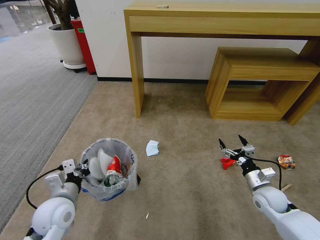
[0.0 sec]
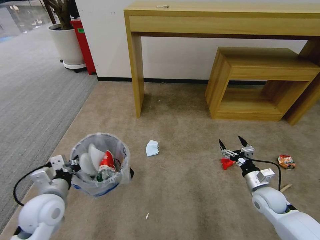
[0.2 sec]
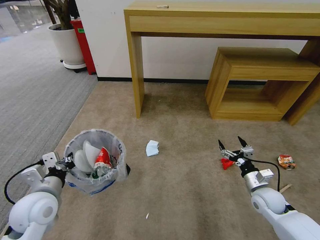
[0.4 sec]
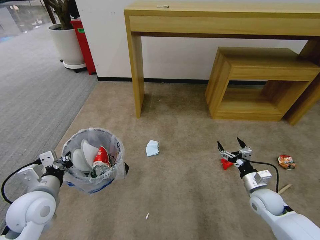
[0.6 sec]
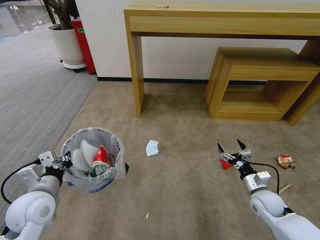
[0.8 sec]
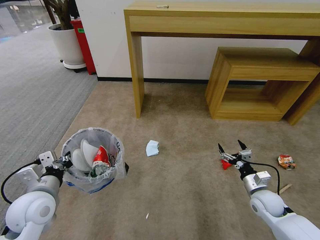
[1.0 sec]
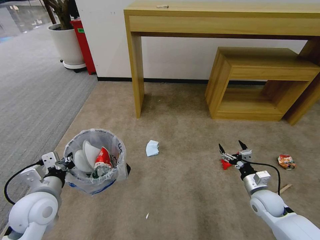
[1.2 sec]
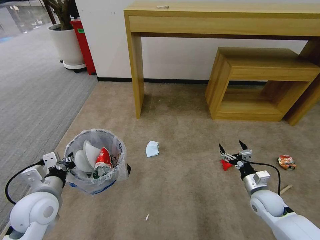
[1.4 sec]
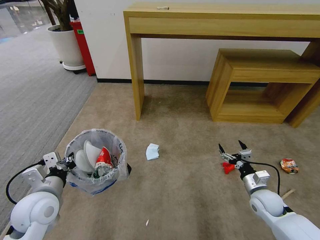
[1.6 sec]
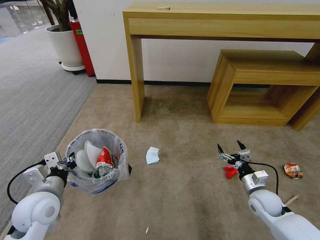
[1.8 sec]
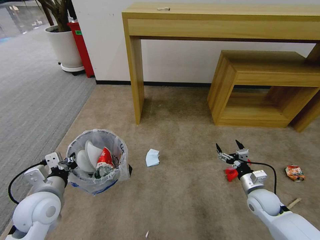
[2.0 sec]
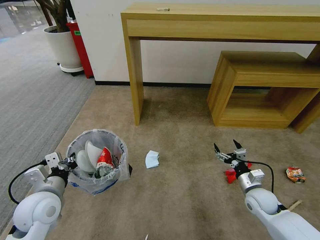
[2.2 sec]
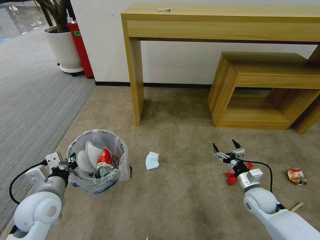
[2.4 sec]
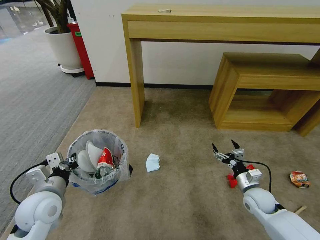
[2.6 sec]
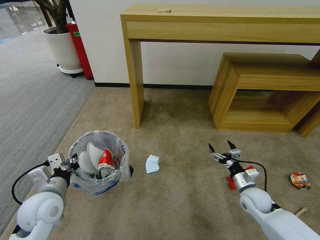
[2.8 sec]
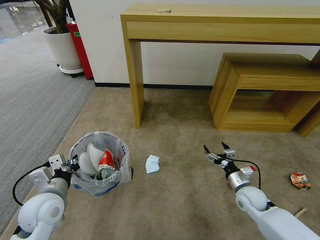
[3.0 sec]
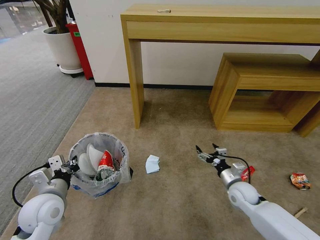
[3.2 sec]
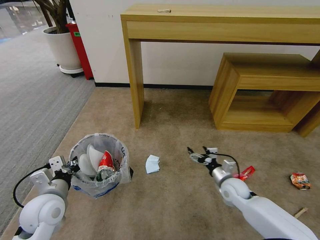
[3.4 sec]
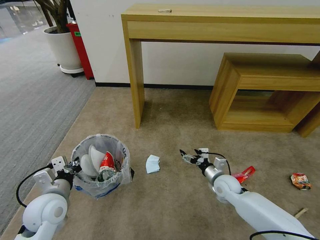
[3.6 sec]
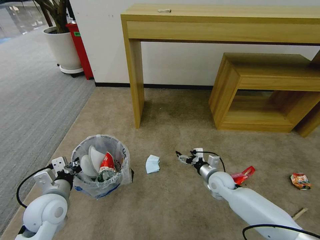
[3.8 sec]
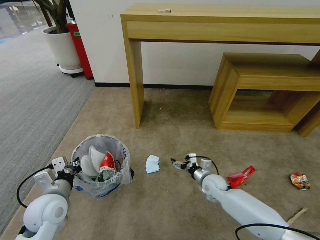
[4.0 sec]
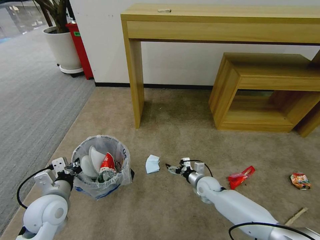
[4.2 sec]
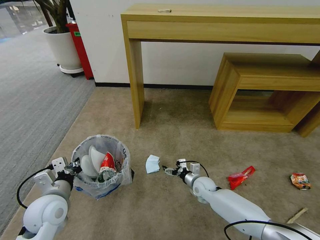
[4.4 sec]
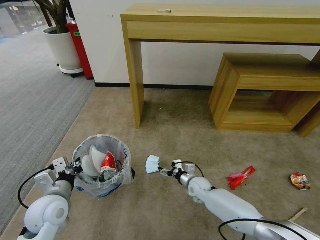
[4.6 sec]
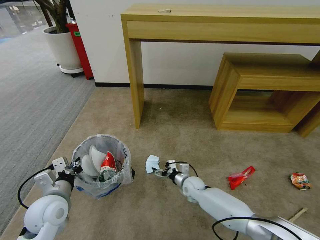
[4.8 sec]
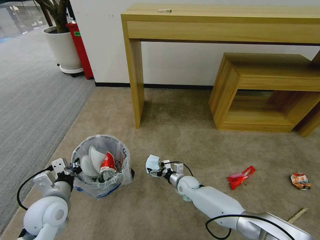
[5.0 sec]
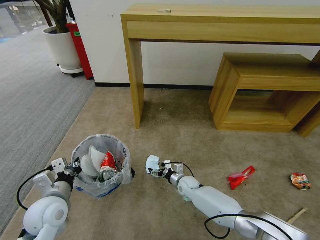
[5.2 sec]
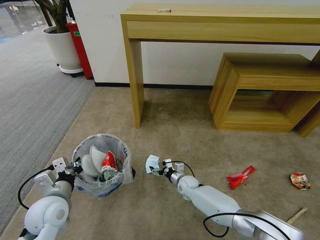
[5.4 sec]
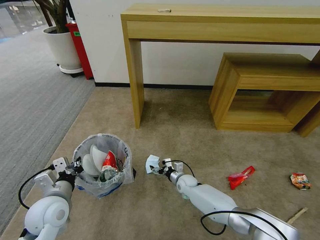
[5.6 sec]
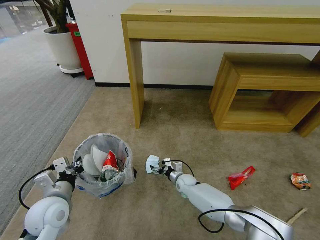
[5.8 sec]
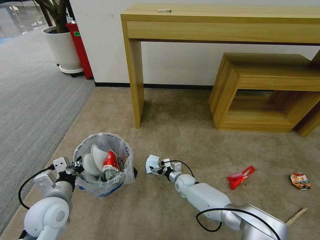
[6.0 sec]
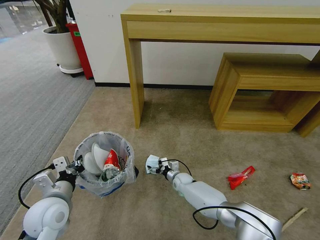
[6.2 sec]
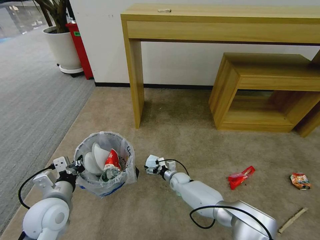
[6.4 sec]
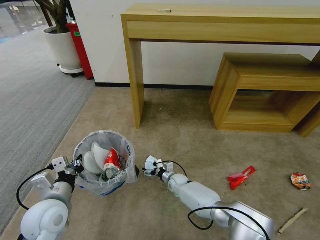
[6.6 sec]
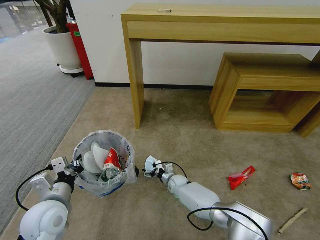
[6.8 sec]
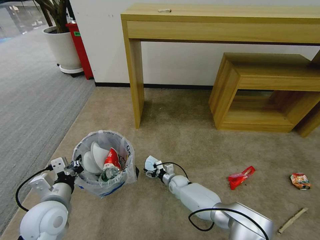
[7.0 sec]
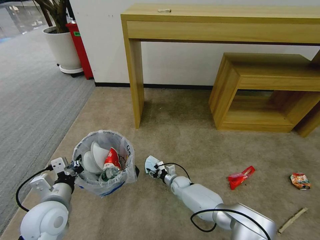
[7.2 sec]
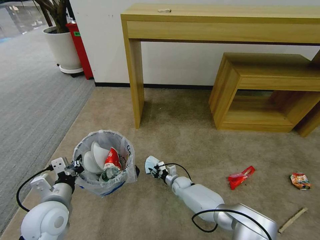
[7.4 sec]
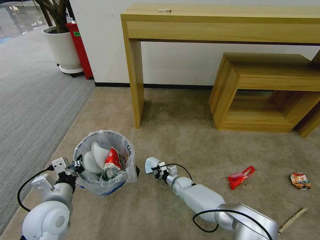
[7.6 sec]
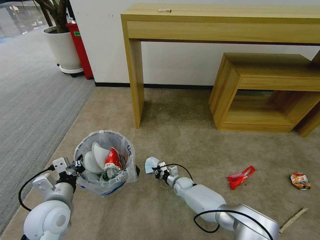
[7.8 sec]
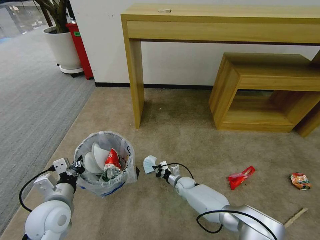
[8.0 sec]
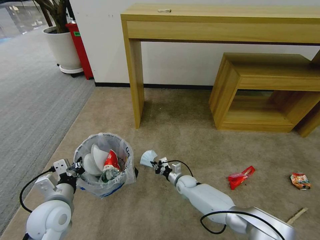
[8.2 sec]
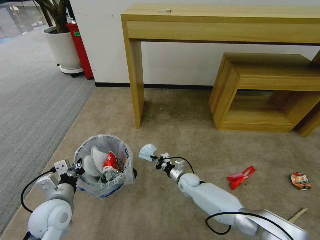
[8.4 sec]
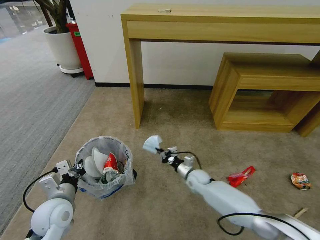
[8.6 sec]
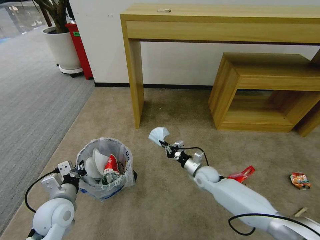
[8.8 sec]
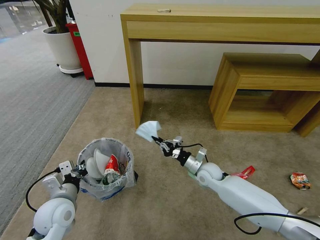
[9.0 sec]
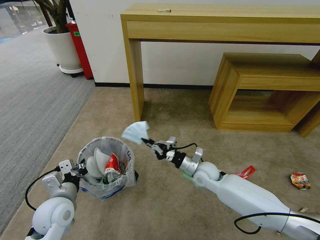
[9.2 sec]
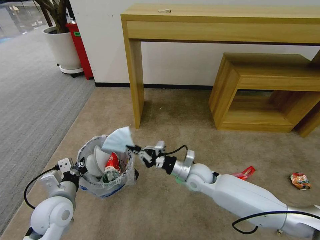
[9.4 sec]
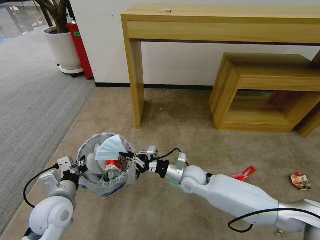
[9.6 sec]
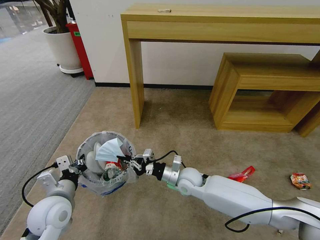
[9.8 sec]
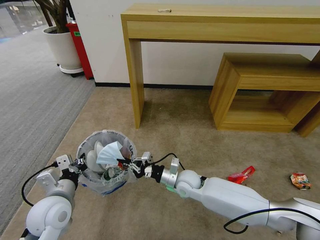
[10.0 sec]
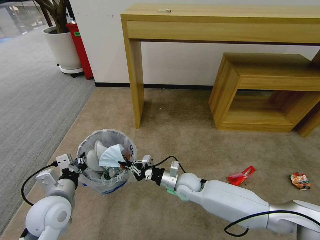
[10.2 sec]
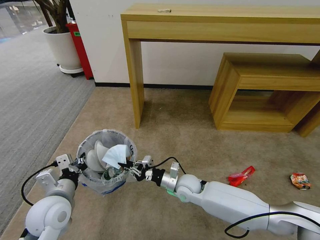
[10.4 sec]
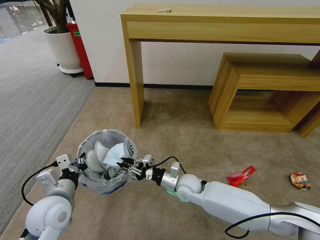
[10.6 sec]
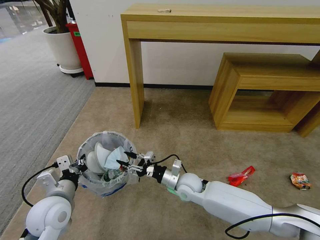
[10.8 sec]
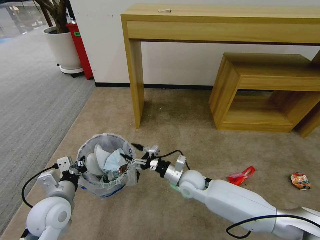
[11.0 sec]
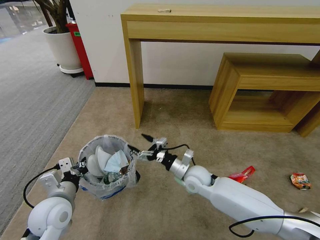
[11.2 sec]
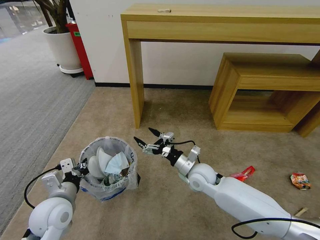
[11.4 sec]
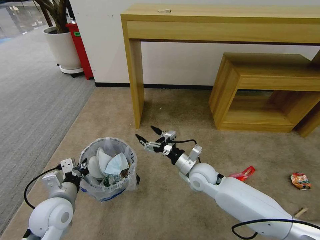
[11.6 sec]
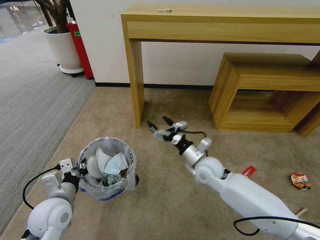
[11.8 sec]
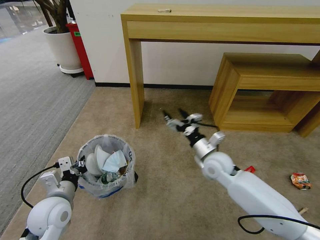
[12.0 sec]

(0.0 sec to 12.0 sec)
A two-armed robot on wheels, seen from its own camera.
Task of the whole recording: Pick up the trash bin and place the garbage on the floor into it.
0.0 sec - 1.6 sec: The left gripper ends up approximately 5 cm from where it was.
3.0 sec - 4.4 sec: The right gripper travels to the left, forward and downward by some 20 cm.
4.4 sec - 6.0 sec: The right gripper goes some 10 cm to the left and downward.
6.0 sec - 7.6 sec: The right gripper closes up.
7.6 sec - 9.0 sec: The right gripper goes roughly 20 cm upward and to the right.
9.0 sec - 10.4 sec: The right gripper moves to the left and backward, about 10 cm.
10.4 sec - 12.0 sec: The right gripper heads upward and to the right, covering some 15 cm, and opens up.

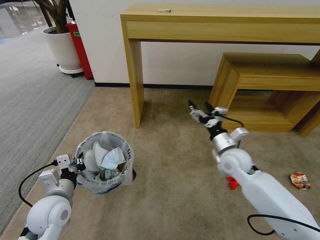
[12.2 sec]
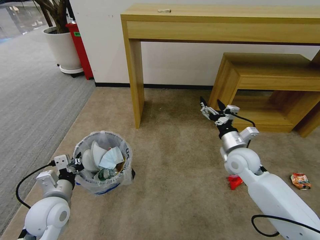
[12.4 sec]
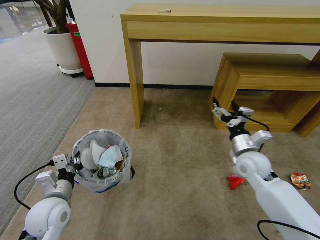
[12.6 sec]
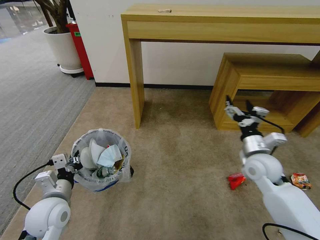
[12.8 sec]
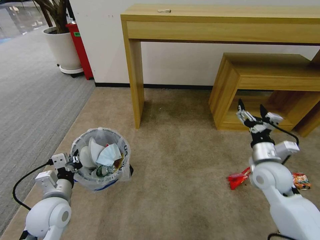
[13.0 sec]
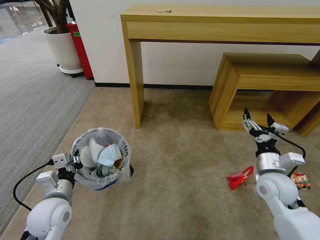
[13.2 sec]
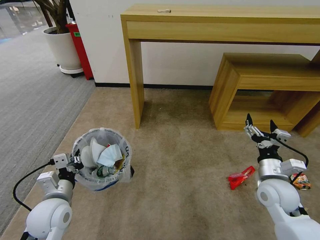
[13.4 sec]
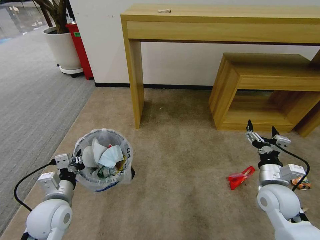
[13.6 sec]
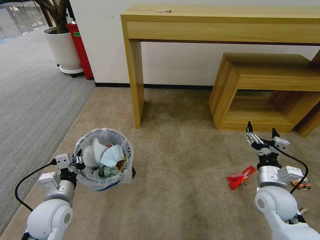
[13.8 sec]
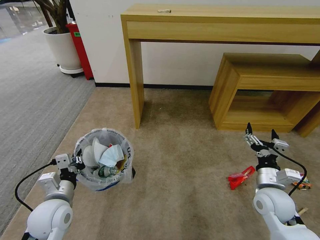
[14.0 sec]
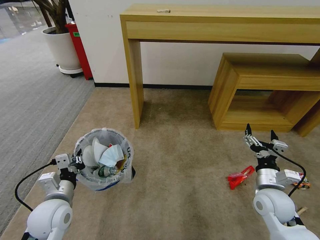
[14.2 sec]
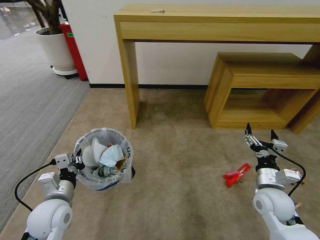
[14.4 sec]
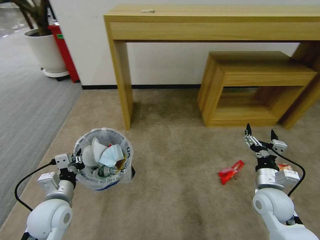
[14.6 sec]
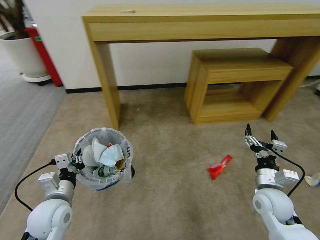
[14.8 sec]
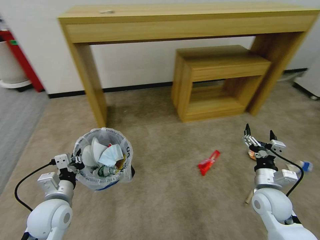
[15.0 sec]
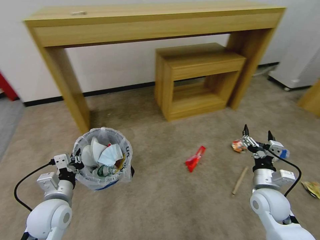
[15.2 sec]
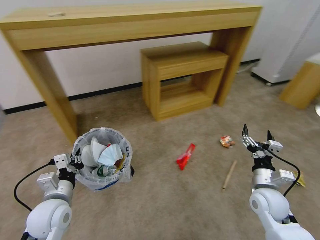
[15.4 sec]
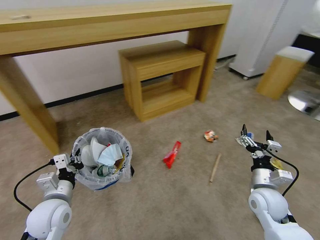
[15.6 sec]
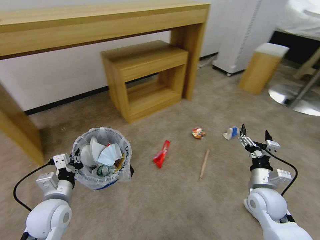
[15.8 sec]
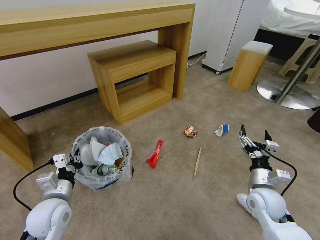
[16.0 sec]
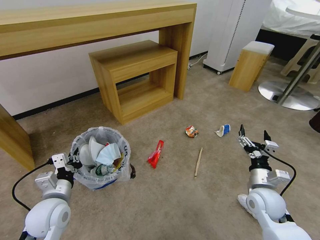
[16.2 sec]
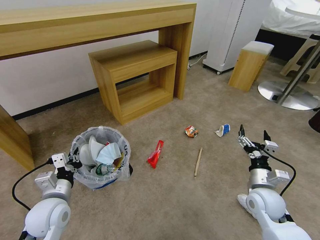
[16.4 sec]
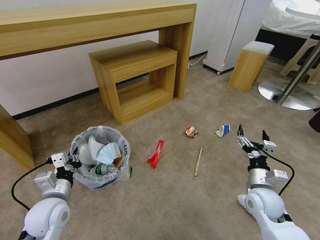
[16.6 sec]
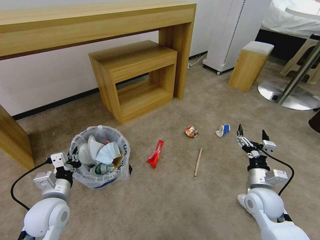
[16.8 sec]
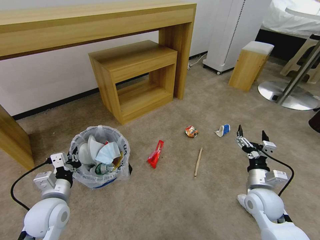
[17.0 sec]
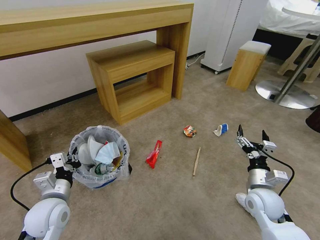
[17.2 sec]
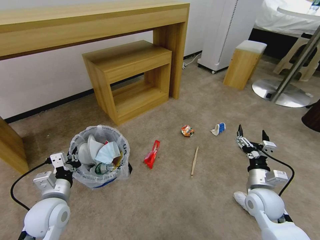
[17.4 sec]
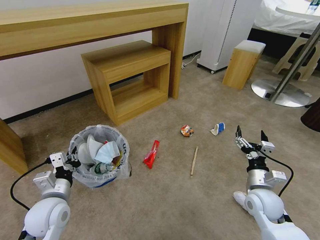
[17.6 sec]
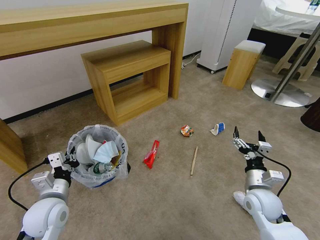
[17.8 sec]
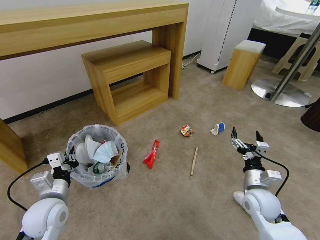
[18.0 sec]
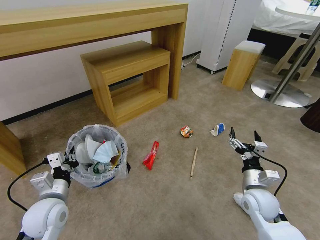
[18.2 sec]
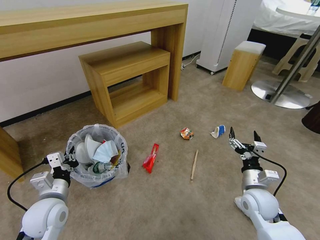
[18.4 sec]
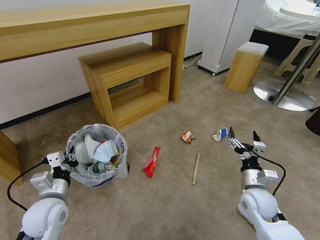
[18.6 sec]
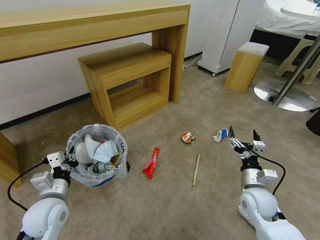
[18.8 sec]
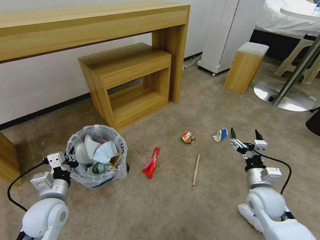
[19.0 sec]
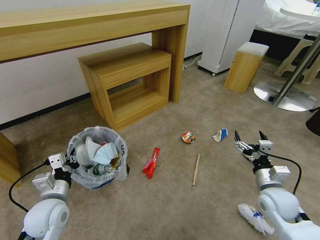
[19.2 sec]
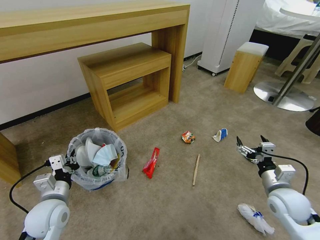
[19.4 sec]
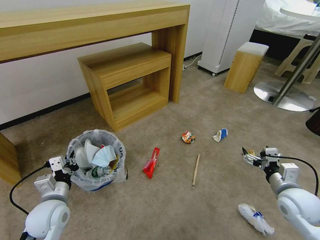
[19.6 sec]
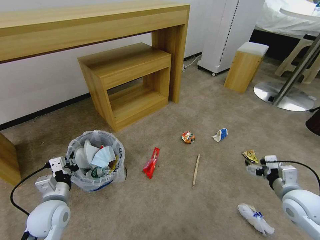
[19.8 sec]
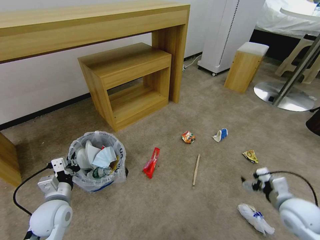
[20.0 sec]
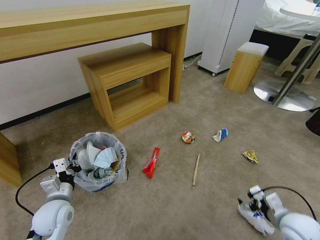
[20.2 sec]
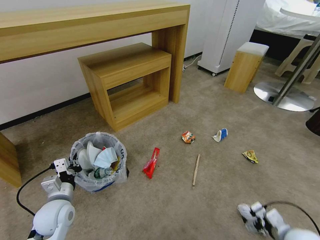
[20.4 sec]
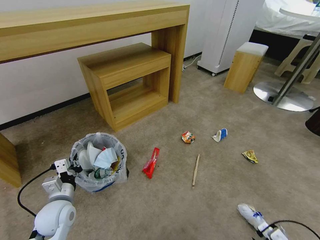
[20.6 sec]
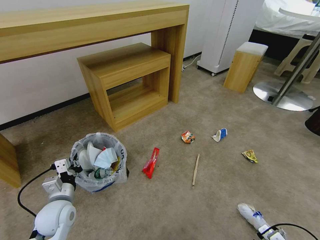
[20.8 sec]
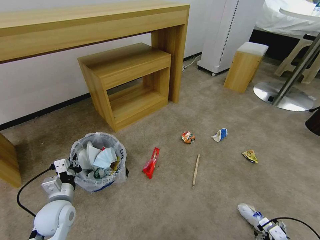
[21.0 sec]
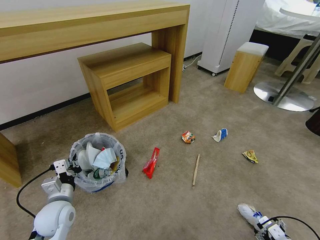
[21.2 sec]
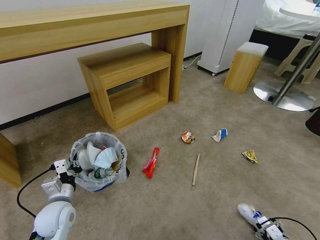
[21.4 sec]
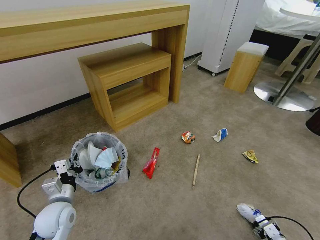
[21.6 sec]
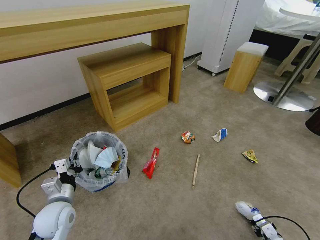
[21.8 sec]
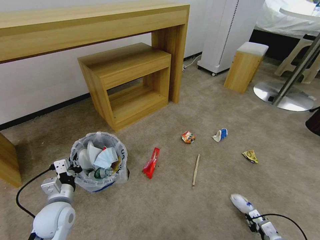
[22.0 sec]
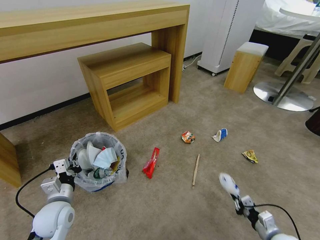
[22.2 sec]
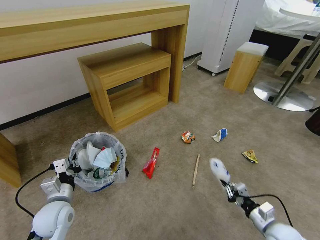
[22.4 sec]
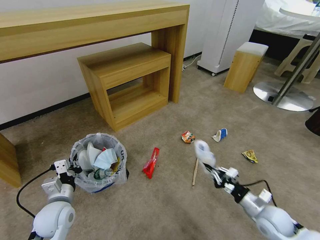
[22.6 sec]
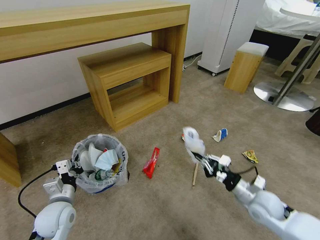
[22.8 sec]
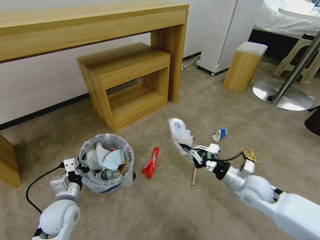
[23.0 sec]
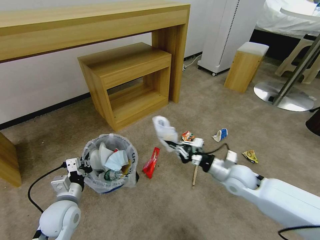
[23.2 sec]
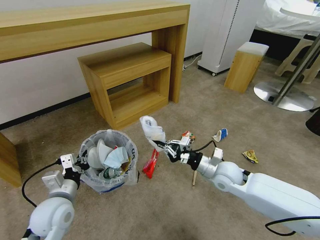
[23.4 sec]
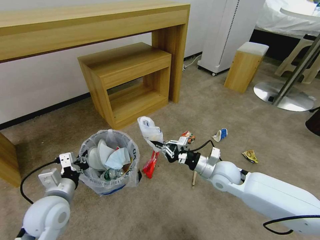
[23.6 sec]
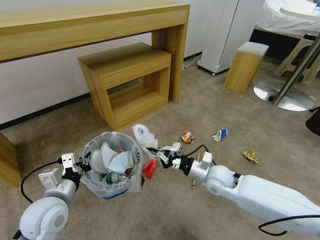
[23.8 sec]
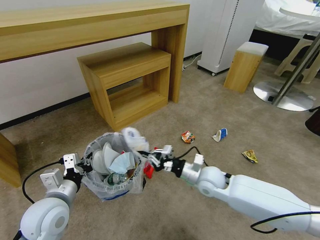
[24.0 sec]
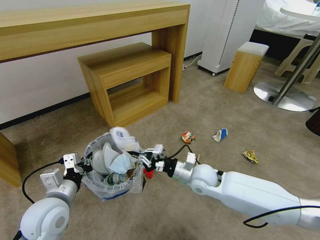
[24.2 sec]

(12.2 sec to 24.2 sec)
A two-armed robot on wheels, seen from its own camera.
Task of the whole recording: Pick up the trash bin and place the garbage on the floor into it.
12.2 sec - 13.8 sec: The right gripper travels backward and to the right by about 15 cm.
16.6 sec - 18.2 sec: Both grippers stay about where they are.
18.2 sec - 19.8 sec: The right gripper travels to the right by some 10 cm.
19.8 sec - 21.2 sec: The right gripper travels downward and backward by about 20 cm.
21.2 sec - 22.6 sec: The right gripper goes some 15 cm forward, to the left and upward, and closes.
22.6 sec - 24.2 sec: The right gripper travels to the left and forward by roughly 25 cm. Meanwhile the left gripper moves upward, approximately 10 cm.
